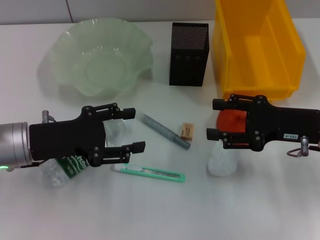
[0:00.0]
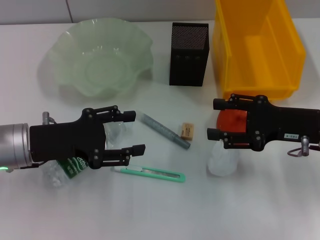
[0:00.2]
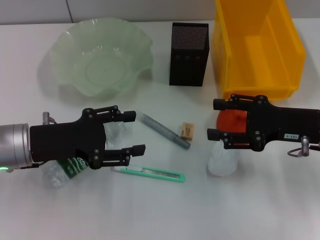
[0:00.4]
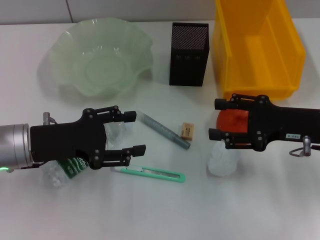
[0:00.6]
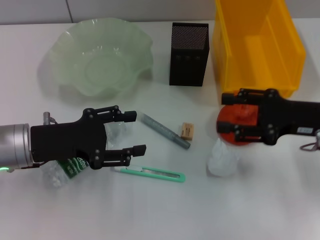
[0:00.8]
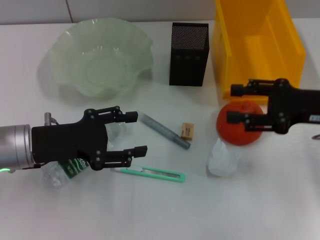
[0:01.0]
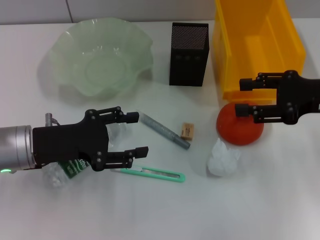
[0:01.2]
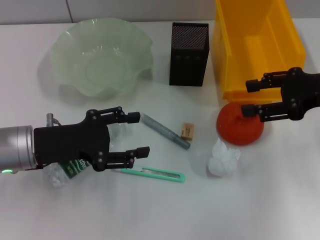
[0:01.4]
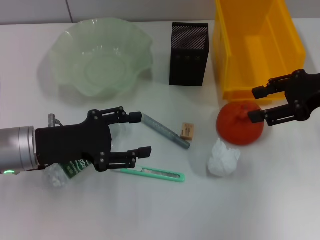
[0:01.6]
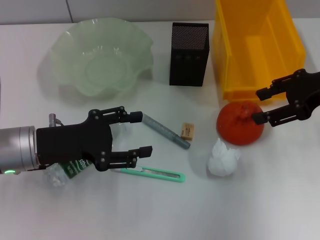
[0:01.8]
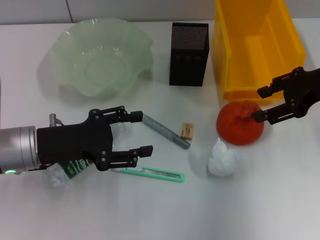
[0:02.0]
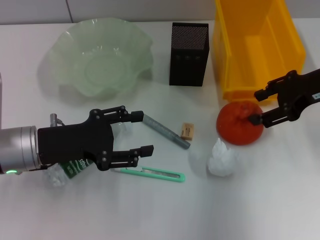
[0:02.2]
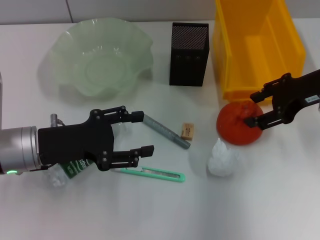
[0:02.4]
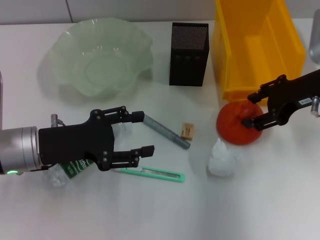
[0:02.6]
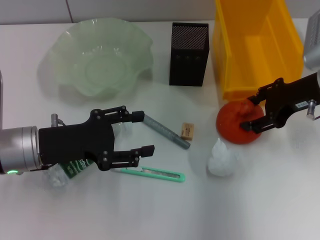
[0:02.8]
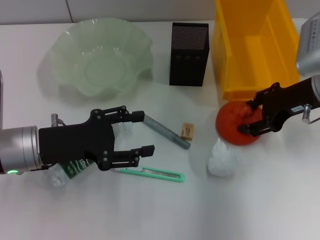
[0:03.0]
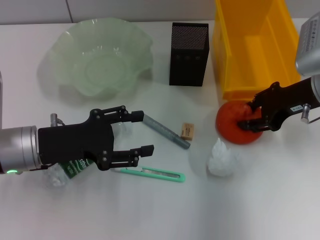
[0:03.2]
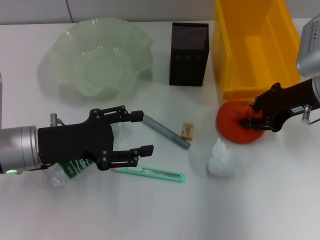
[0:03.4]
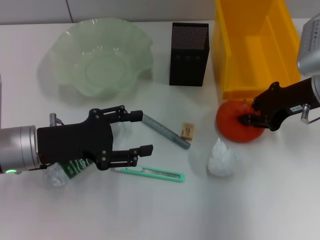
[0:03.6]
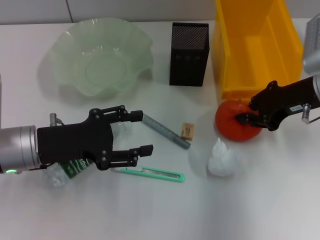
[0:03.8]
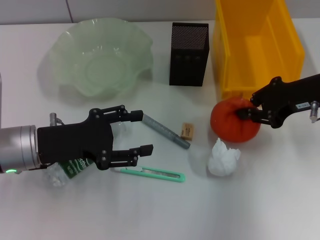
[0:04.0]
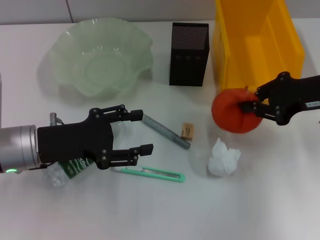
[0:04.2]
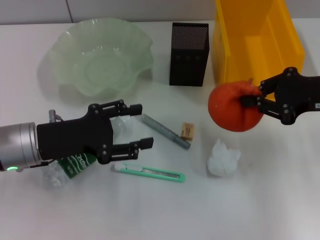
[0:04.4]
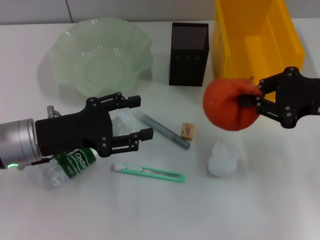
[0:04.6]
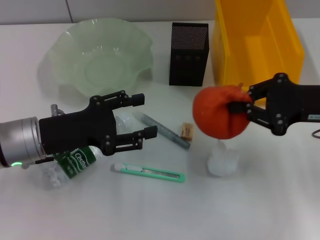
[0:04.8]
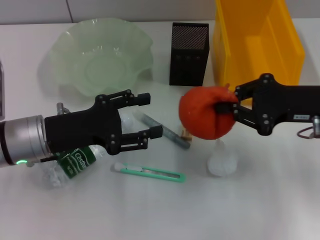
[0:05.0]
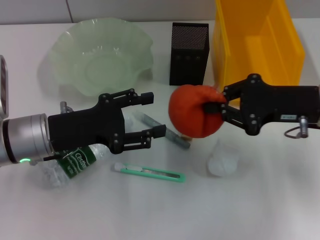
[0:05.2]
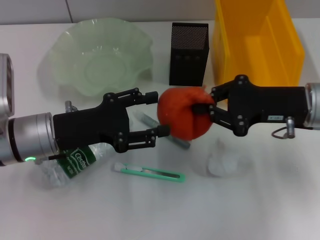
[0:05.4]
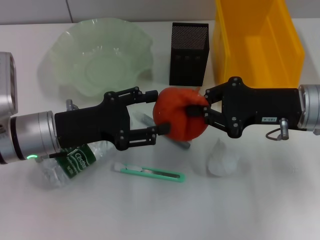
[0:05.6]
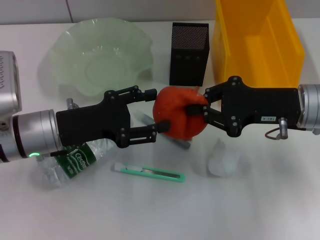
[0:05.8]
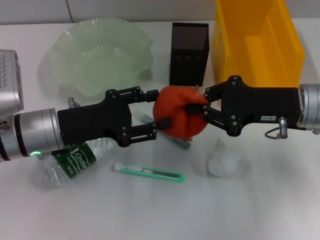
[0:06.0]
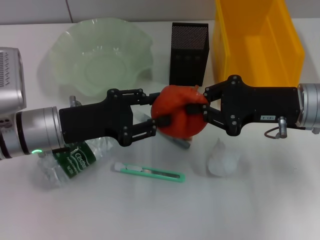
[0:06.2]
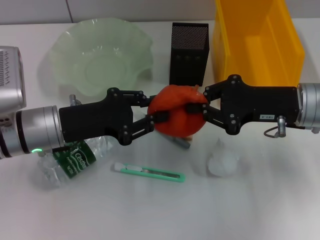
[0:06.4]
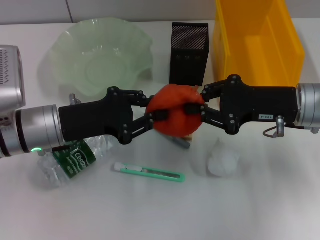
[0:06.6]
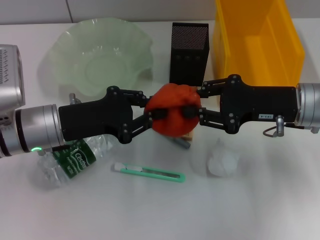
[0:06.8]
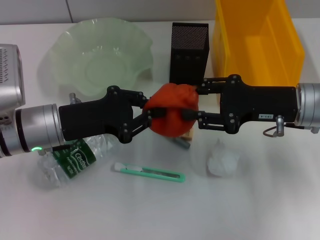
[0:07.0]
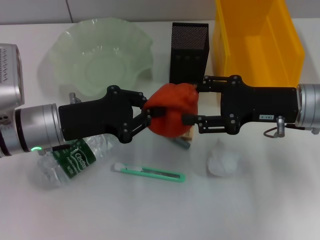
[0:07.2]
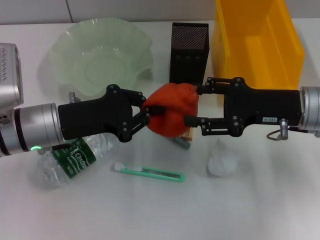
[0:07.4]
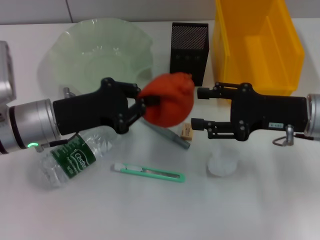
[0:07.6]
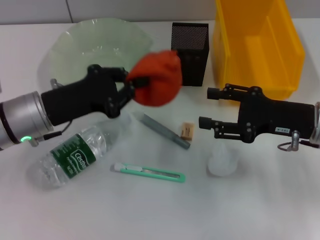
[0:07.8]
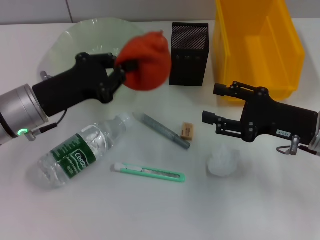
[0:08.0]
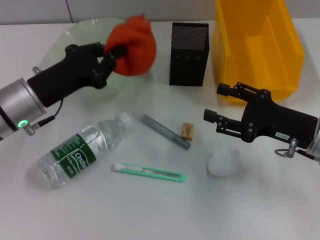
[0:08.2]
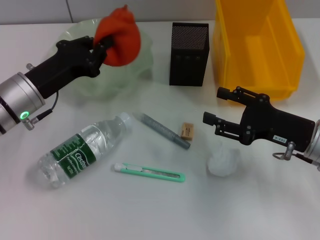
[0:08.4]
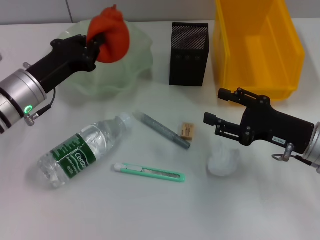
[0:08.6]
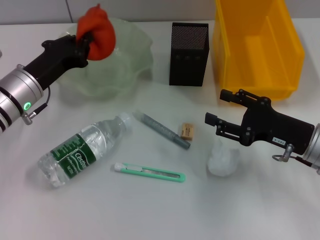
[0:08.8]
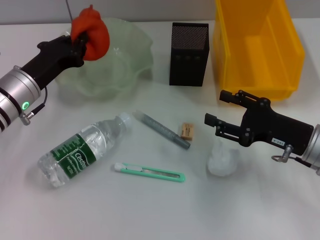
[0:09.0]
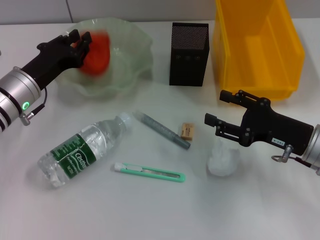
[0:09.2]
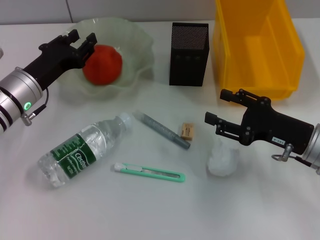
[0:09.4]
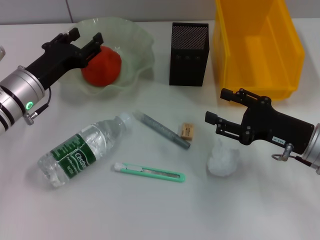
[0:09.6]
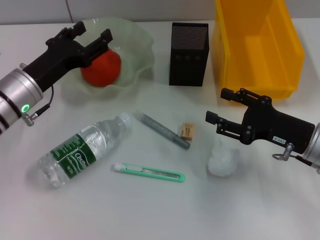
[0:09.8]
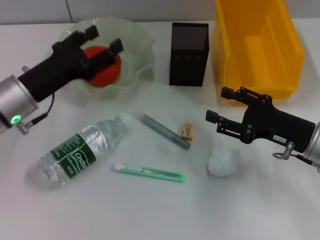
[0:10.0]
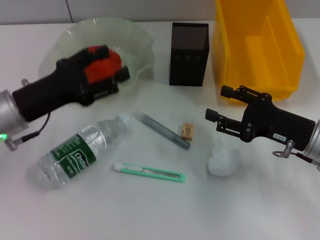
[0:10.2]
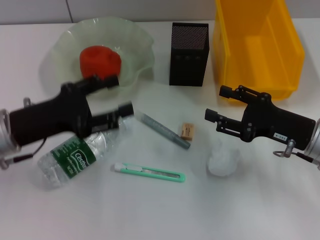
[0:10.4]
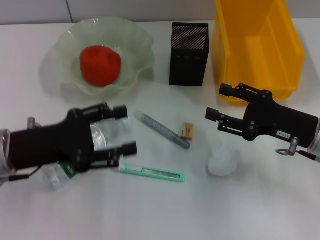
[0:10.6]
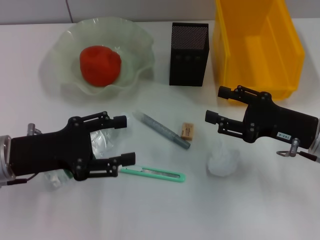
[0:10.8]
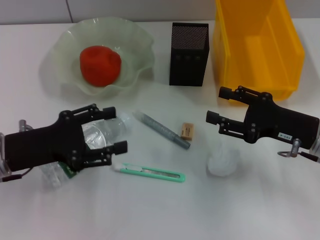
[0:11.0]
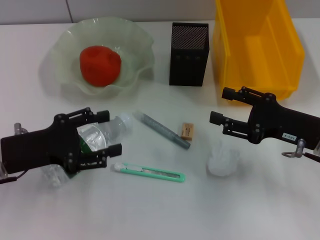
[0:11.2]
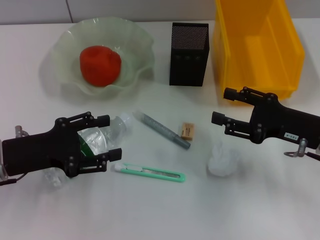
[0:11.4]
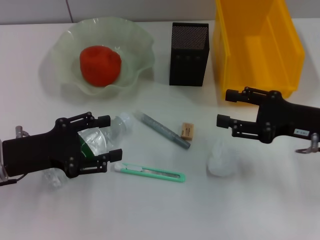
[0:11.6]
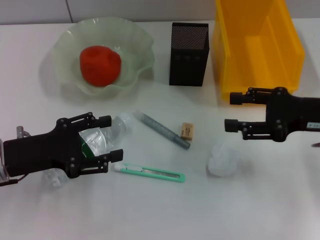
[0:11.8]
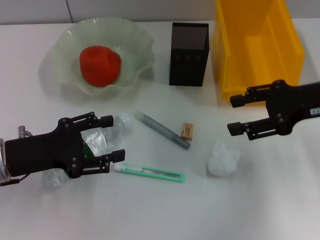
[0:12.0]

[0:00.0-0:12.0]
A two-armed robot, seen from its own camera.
Step, 0:00.0 to 0:03.6: Grab the orange with the right hand.
Step, 0:03.8 to 0:07.4: Pass the orange from the right hand to the left hand.
Step, 0:07.8 to 0:09.6: Place the orange into the fruit bowl with the left hand.
0:00.0 to 0:01.6: The right gripper travels upward by approximately 10 cm.
0:01.6 to 0:03.0: The right gripper ends up approximately 5 cm from where it was.
0:03.0 to 0:04.4: The right gripper ends up approximately 5 cm from where it was, and closes up.
0:04.4 to 0:06.0: The right gripper goes about 5 cm to the left.
0:06.0 to 0:07.6: The left gripper closes. Meanwhile the right gripper opens its fingers.
0:07.6 to 0:09.0: The right gripper travels downward by some 5 cm; the left gripper ends up about 5 cm from where it was.
0:09.0 to 0:10.4: The left gripper is displaced backward by approximately 5 cm, and opens.
0:10.4 to 0:12.0: The right gripper is displaced upward by about 10 cm.

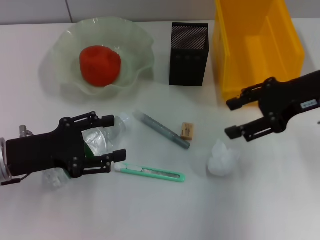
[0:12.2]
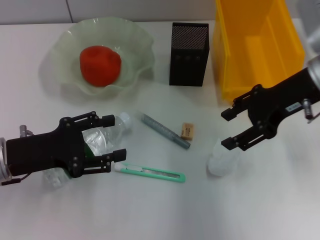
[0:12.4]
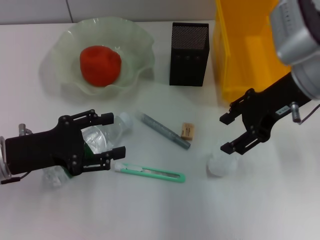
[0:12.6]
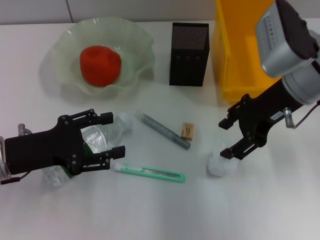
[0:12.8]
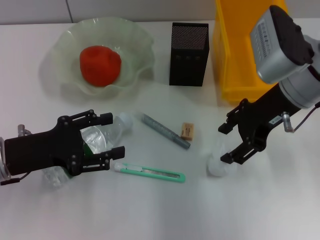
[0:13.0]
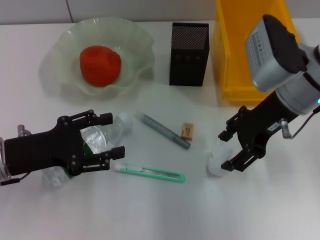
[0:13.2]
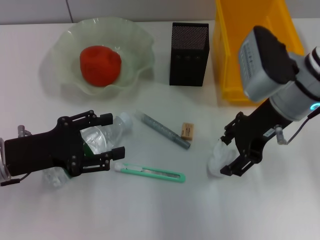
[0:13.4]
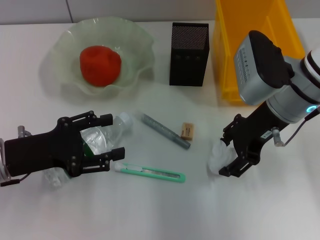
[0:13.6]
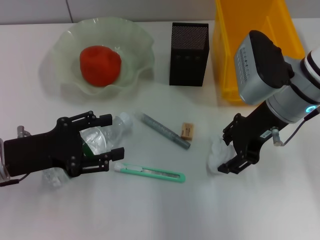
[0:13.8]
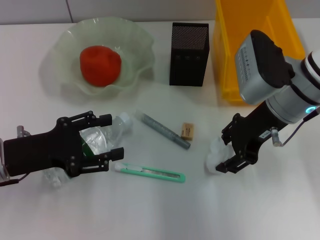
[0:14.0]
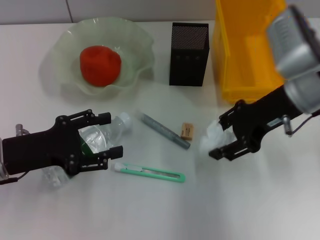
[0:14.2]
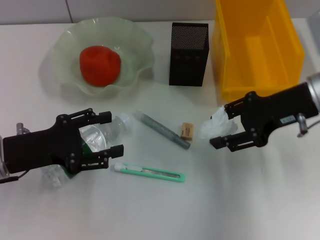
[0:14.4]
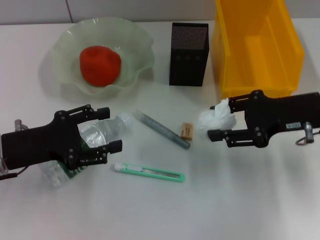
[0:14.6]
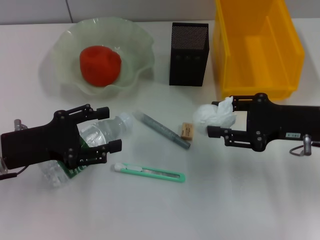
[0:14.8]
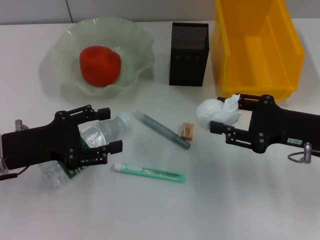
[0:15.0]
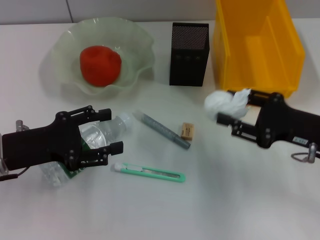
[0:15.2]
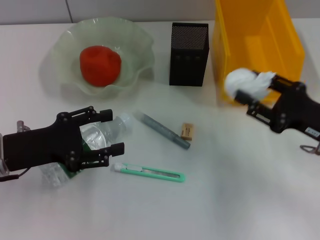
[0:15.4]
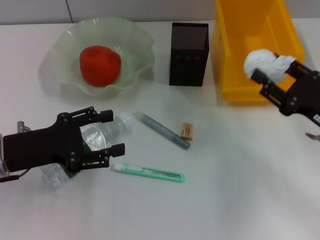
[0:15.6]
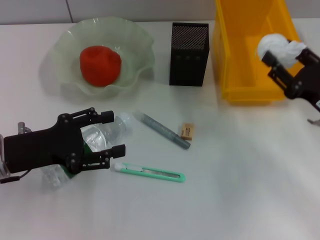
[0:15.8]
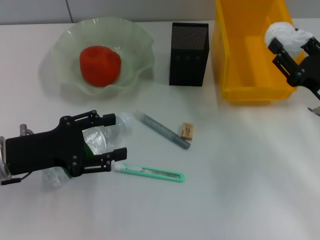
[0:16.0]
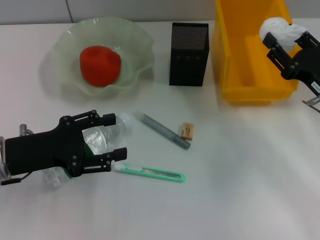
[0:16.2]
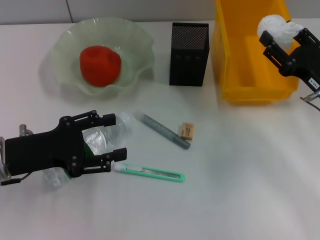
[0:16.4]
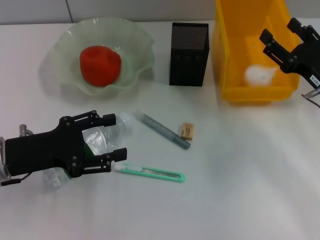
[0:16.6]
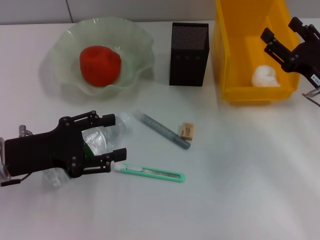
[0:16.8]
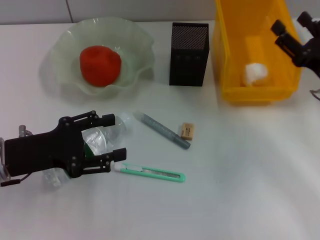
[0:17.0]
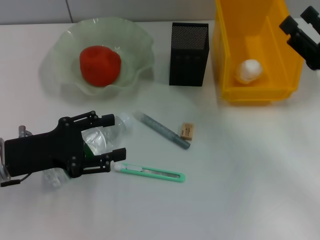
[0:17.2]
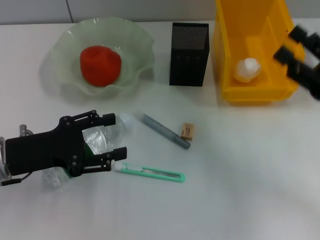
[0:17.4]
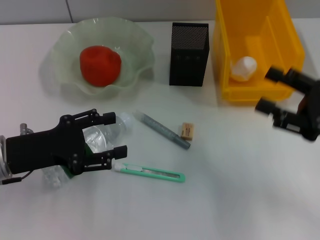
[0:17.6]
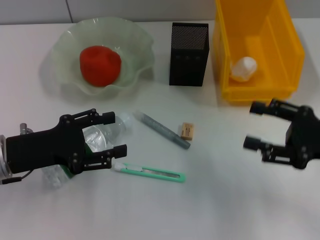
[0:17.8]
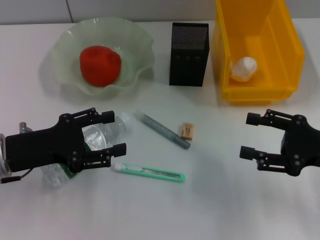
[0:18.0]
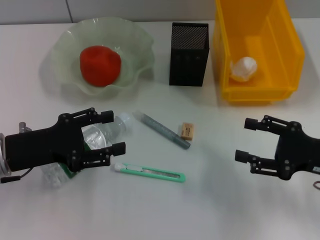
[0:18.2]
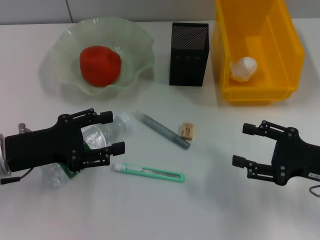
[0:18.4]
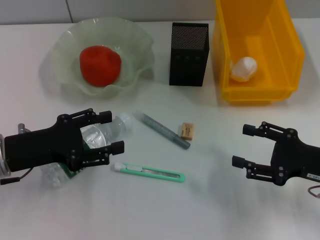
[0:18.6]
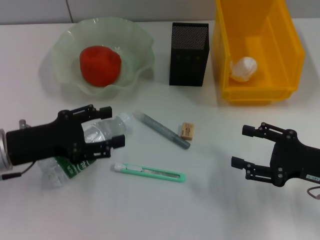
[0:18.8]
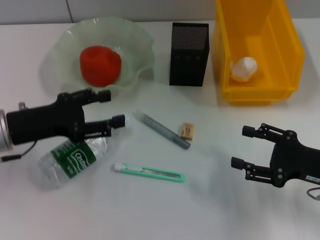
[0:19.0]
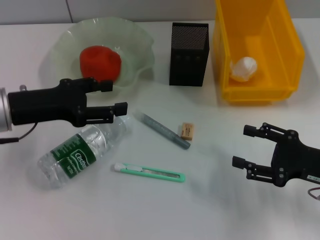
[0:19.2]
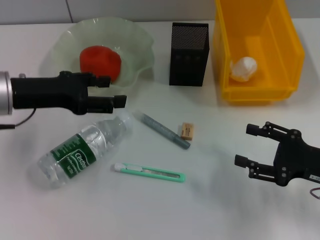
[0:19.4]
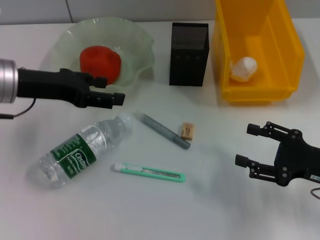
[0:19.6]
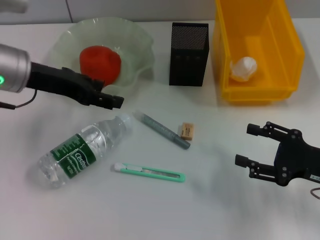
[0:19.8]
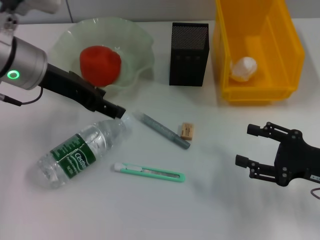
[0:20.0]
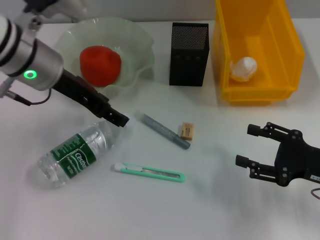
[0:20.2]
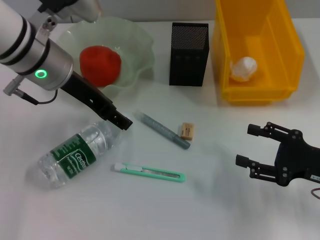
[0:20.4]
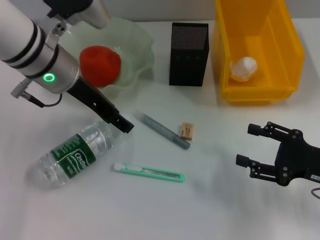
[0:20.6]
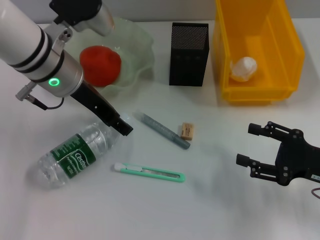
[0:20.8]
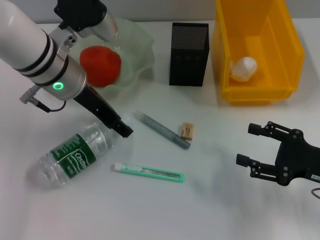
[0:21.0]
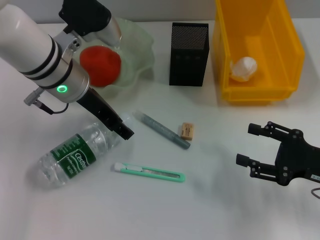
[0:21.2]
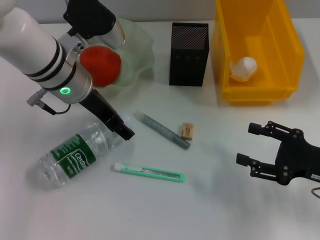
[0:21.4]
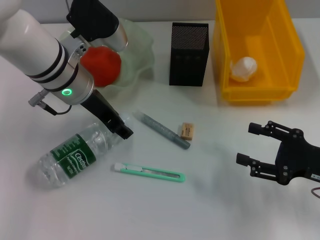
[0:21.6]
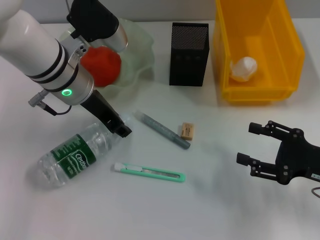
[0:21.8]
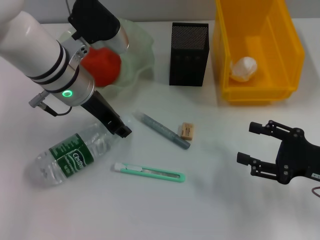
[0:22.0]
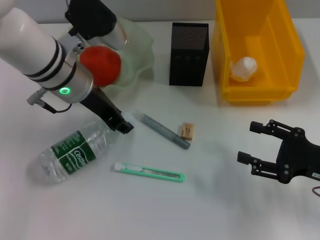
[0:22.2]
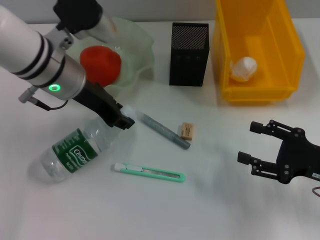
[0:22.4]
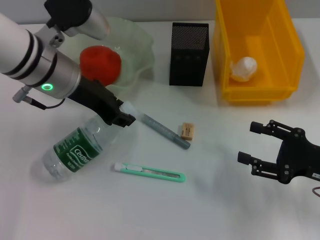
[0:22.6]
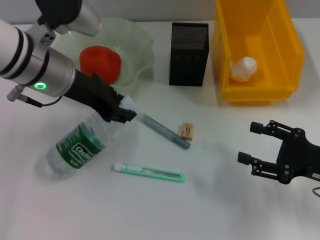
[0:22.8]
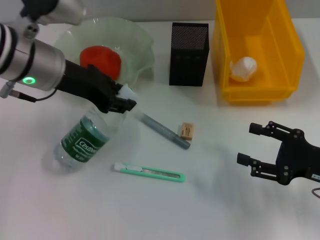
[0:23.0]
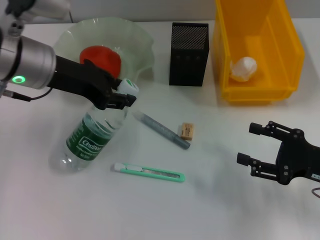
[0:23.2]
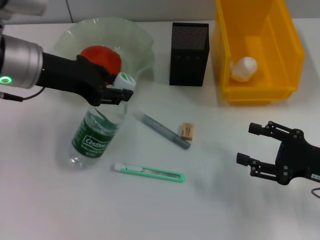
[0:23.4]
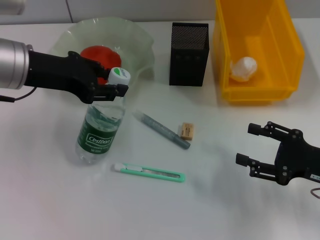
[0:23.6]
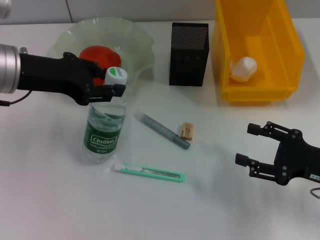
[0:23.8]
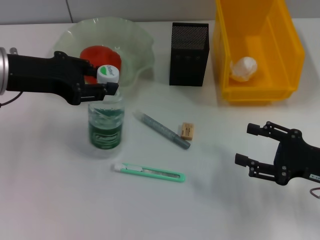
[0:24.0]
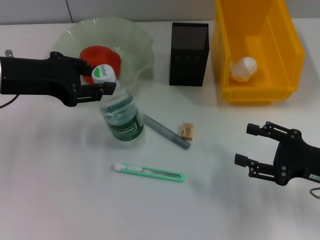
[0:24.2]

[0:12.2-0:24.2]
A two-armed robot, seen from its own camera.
Step, 0:14.0 to 0:16.6: Place the paper ball into the trash can with the right hand.
Step, 0:16.8 to 0:21.8: Grab the water bottle with the left hand.
0:12.2 to 0:13.8: The right gripper travels to the left by approximately 5 cm.
0:13.8 to 0:15.2: The right gripper goes some 15 cm to the right, backward and downward.
0:16.6 to 0:18.2: The right gripper shifts approximately 5 cm backward.
0:18.2 to 0:19.8: The left gripper moves forward and upward, some 15 cm.
0:19.8 to 0:21.2: The left gripper travels to the right by approximately 10 cm.
0:21.2 to 0:22.6: The left gripper closes.
0:22.6 to 0:24.2: The left gripper goes about 10 cm to the left.
